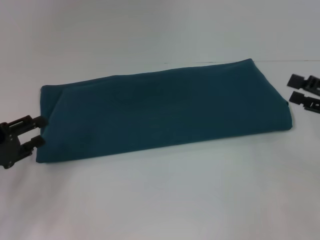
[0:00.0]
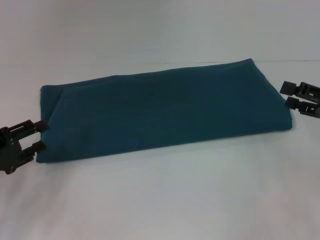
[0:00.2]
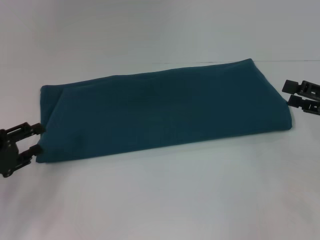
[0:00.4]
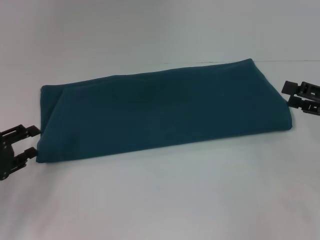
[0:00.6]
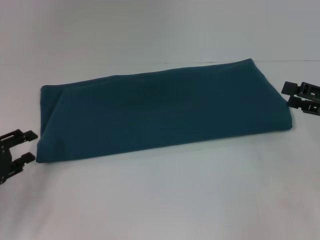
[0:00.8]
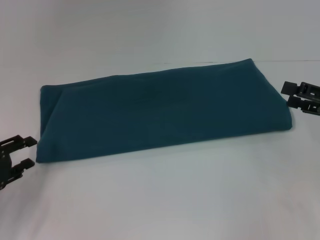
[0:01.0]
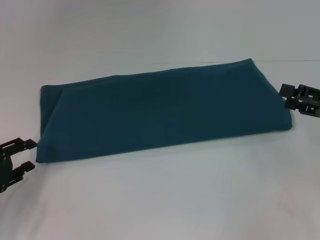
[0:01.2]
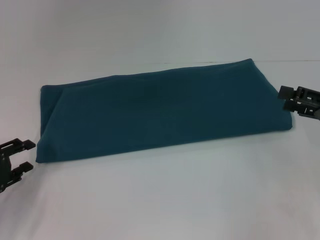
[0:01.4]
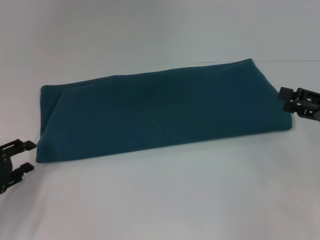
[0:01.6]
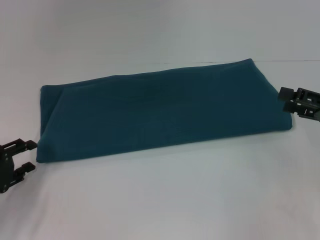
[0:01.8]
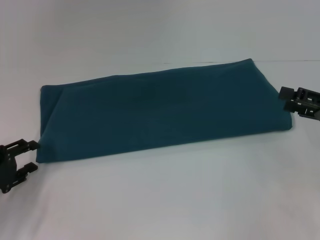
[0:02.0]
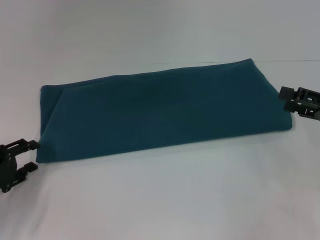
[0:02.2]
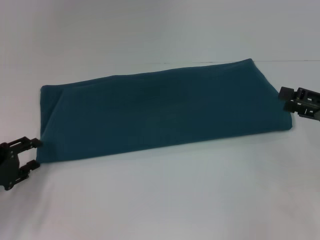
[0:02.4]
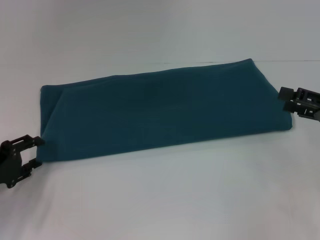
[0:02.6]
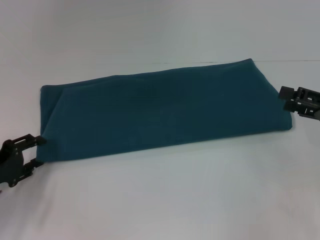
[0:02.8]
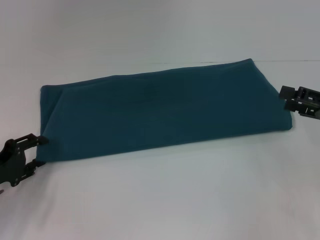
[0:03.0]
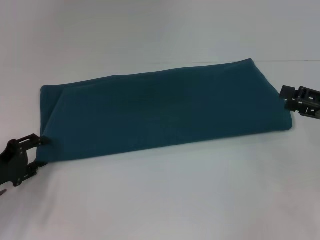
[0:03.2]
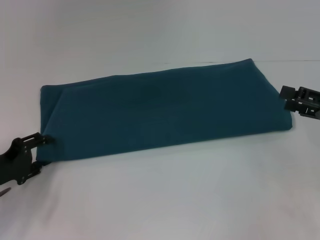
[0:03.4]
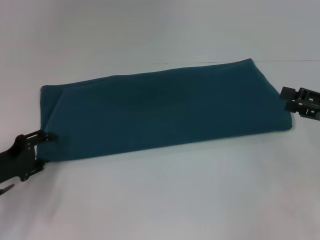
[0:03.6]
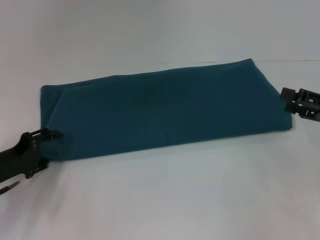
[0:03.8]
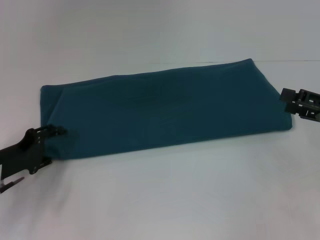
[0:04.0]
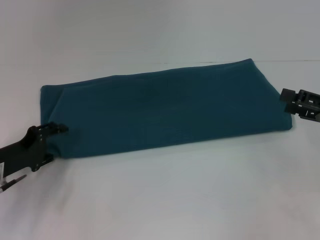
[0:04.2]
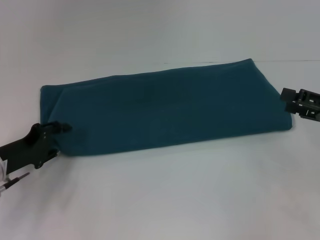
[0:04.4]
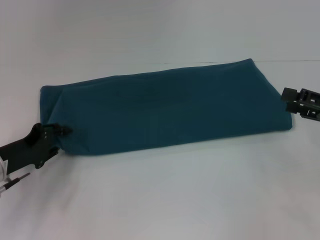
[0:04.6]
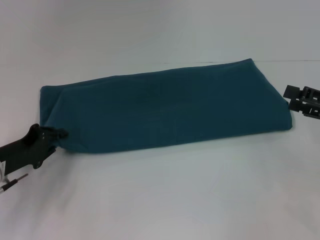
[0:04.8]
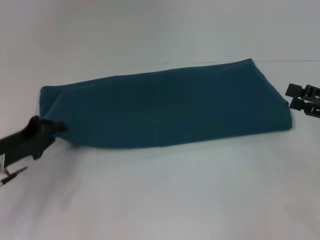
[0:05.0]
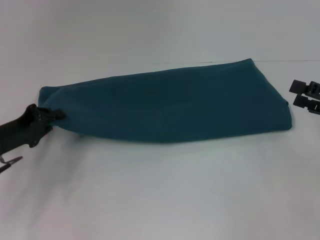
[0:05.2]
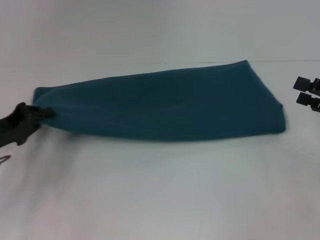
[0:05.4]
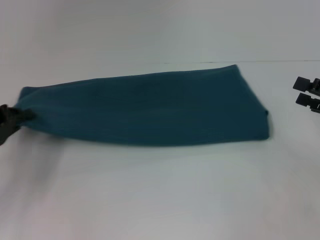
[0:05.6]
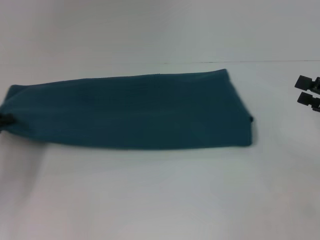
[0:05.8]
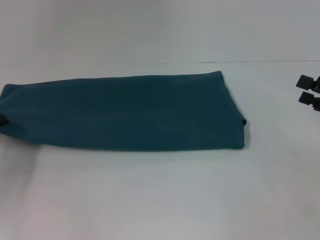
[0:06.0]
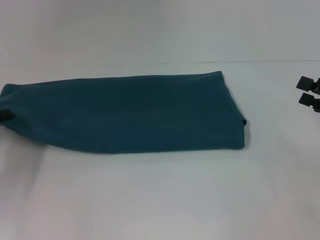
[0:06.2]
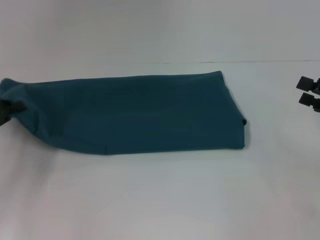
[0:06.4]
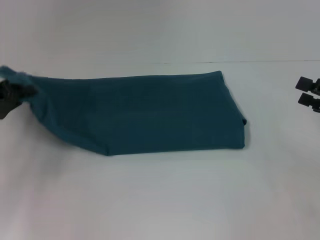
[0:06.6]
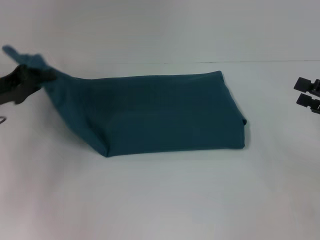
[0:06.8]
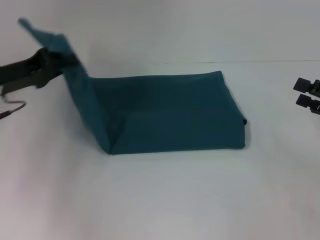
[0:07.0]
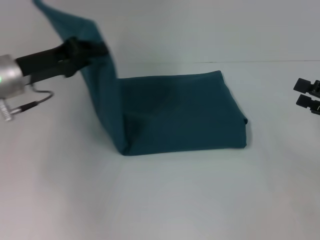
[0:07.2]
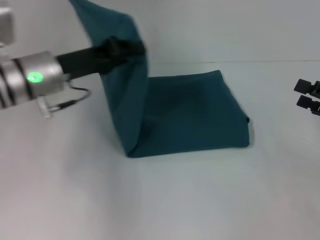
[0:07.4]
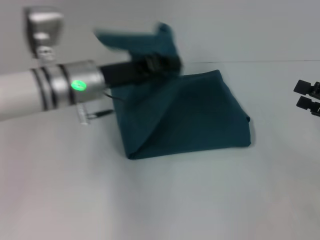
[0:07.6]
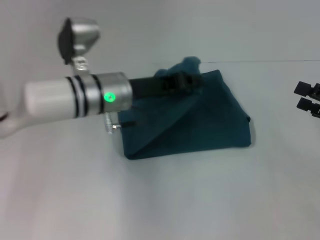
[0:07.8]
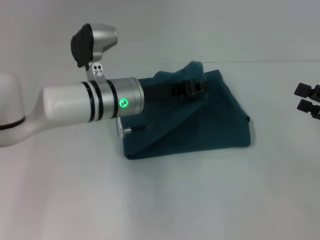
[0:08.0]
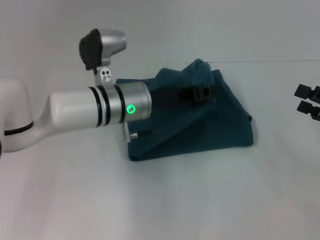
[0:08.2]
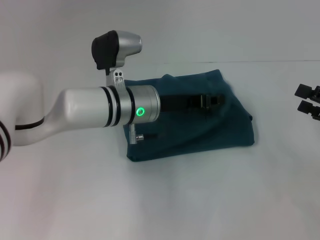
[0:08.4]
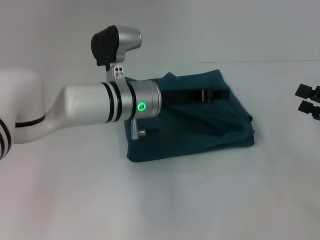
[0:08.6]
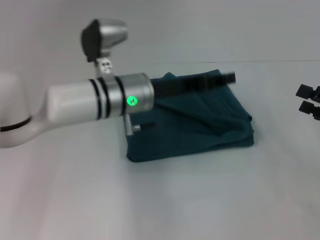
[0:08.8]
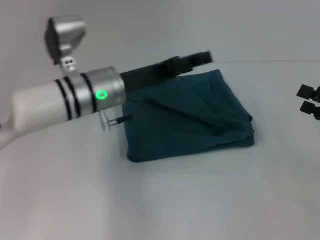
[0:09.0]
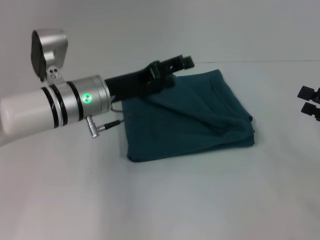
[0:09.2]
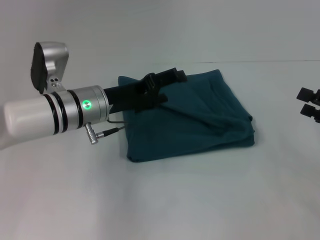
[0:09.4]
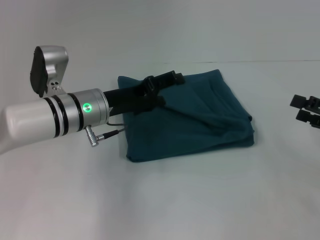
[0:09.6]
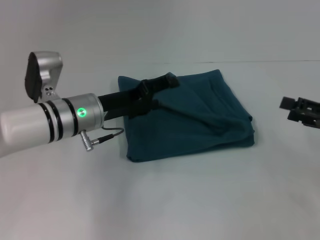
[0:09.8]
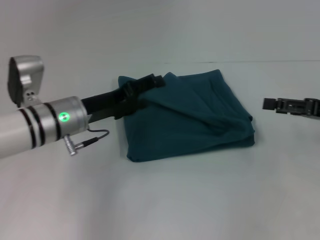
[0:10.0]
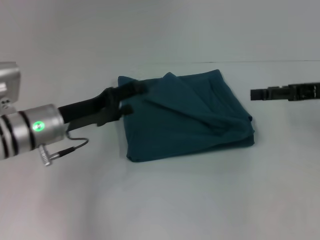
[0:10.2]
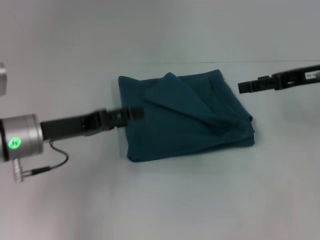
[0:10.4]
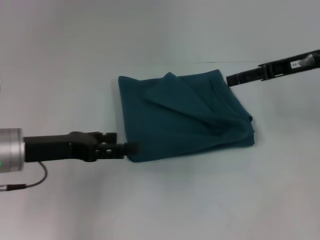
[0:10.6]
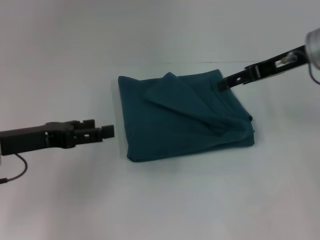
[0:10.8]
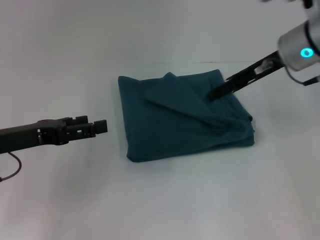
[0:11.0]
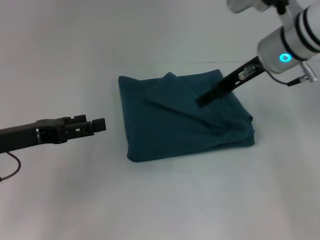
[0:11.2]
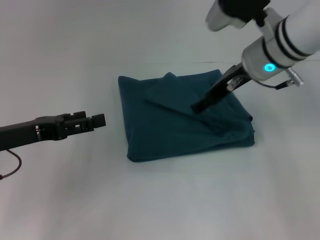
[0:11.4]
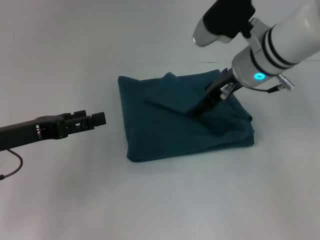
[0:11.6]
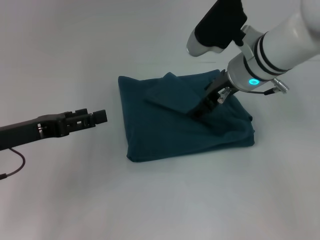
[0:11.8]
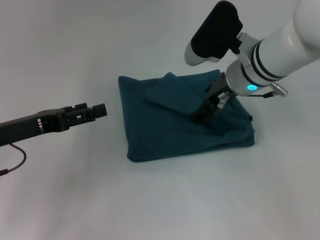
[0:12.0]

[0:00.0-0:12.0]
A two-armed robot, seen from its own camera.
Step, 0:00.0 to 0:09.0: Fold the clothes to the left.
0:00.0 to 0:03.0: There are only small adjustments of the grippers.
0:03.0 to 0:04.4: The grippers stay close to where they were, moving slightly.
0:04.4 to 0:06.0: The left gripper travels to the left by some 10 cm, and closes up.
0:06.0 to 0:07.6: The left gripper goes approximately 25 cm to the right.
0:07.6 to 0:09.0: The left gripper goes to the right and returns, some 10 cm each way, and opens up.
0:09.0 to 0:10.4: The right gripper heads forward, upward and to the left, covering roughly 15 cm; the left gripper travels to the left and backward by approximately 10 cm.
0:10.4 to 0:12.0: The right gripper is displaced to the left by some 15 cm. The left gripper changes place by roughly 5 cm.

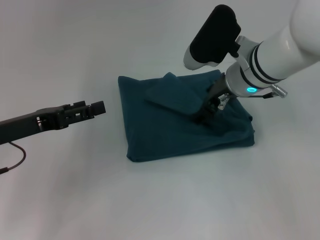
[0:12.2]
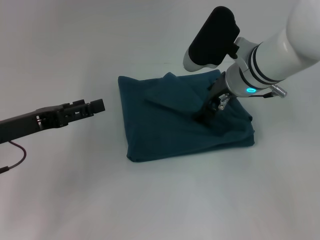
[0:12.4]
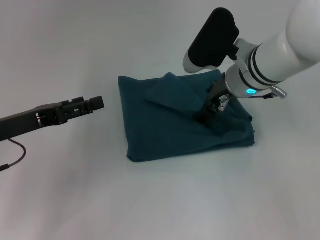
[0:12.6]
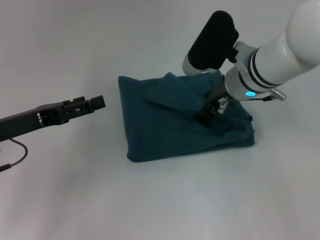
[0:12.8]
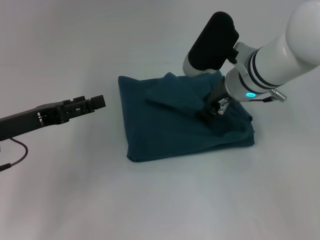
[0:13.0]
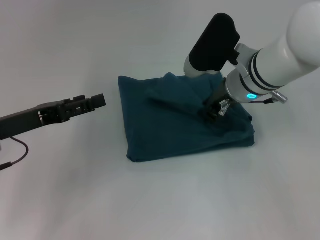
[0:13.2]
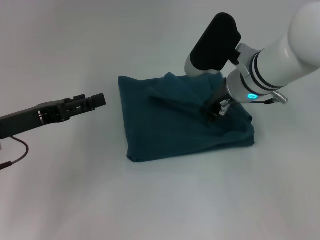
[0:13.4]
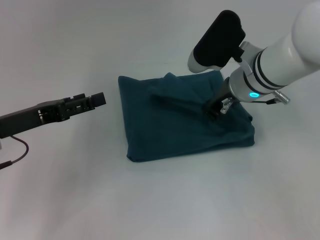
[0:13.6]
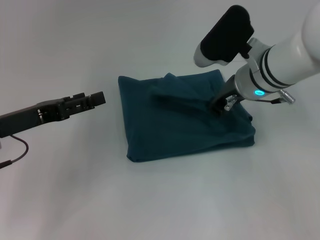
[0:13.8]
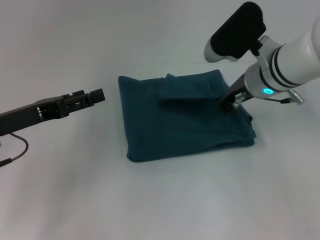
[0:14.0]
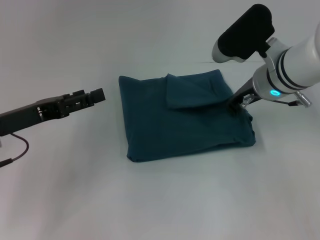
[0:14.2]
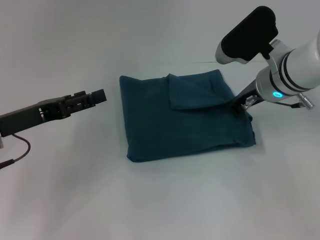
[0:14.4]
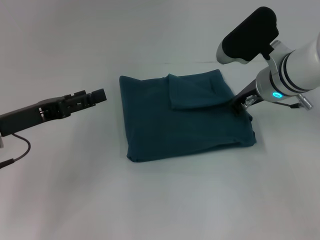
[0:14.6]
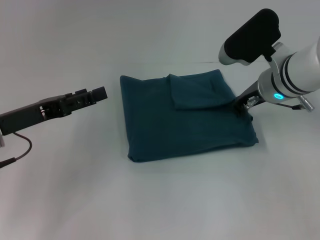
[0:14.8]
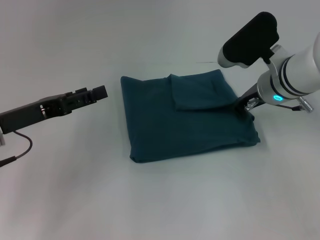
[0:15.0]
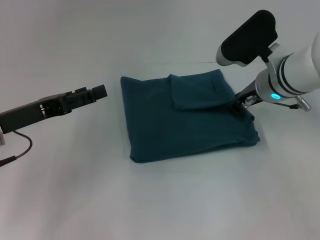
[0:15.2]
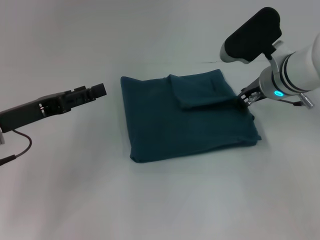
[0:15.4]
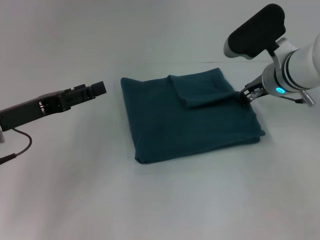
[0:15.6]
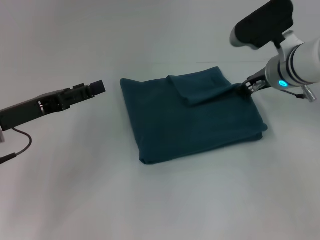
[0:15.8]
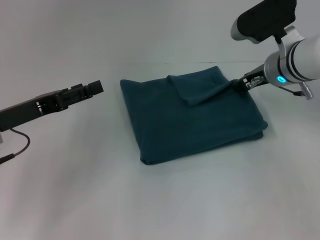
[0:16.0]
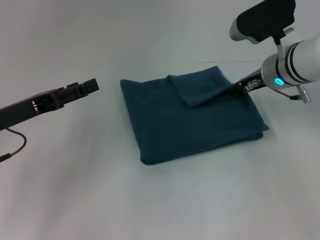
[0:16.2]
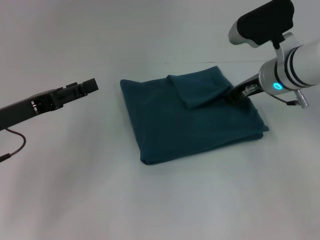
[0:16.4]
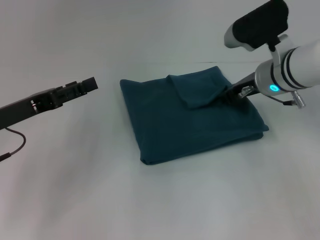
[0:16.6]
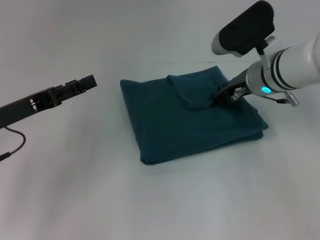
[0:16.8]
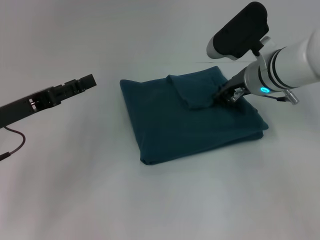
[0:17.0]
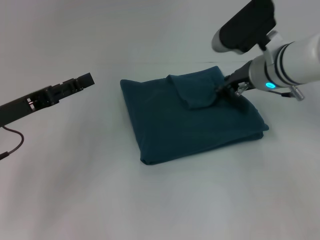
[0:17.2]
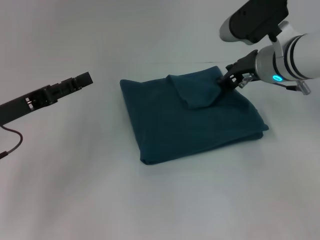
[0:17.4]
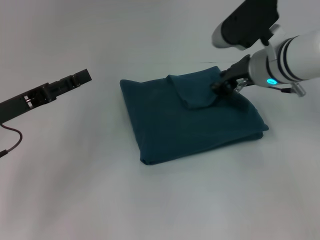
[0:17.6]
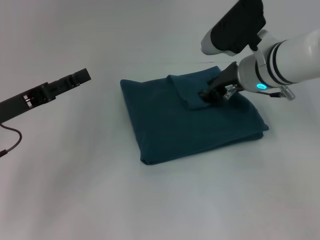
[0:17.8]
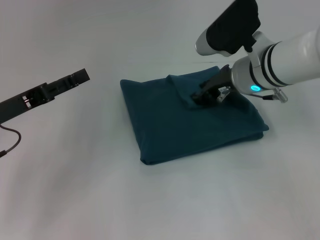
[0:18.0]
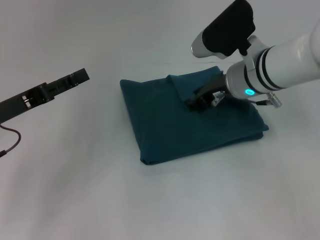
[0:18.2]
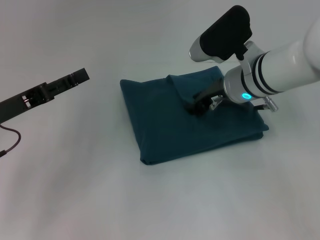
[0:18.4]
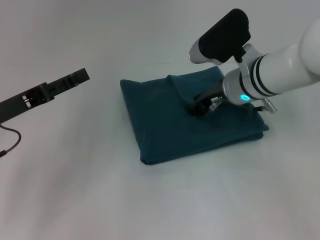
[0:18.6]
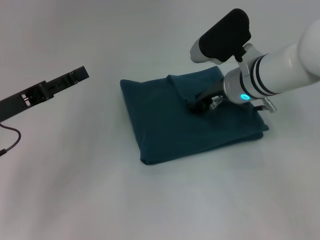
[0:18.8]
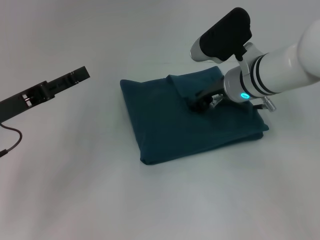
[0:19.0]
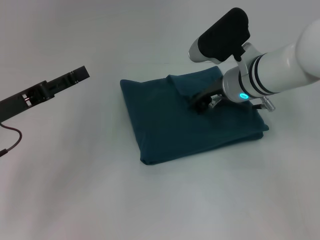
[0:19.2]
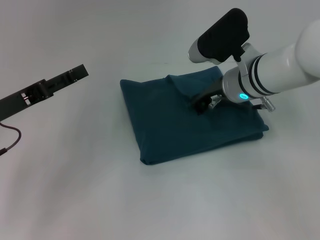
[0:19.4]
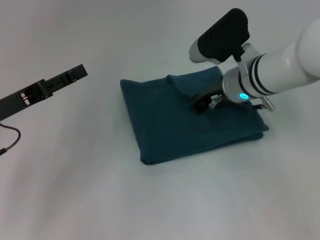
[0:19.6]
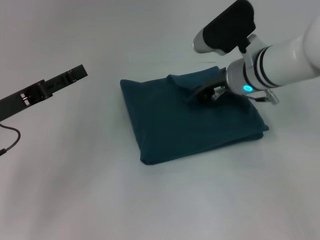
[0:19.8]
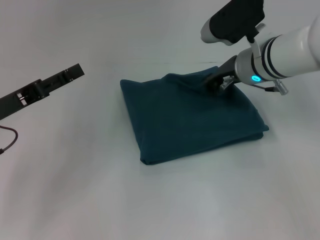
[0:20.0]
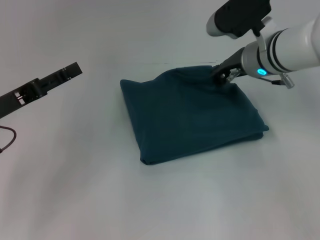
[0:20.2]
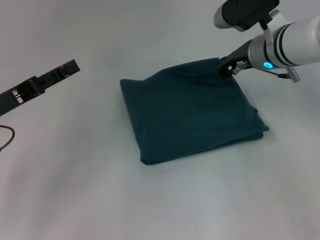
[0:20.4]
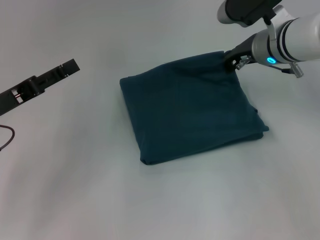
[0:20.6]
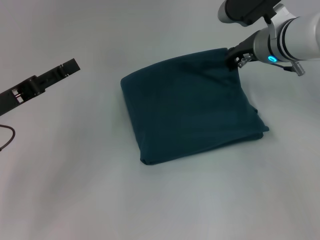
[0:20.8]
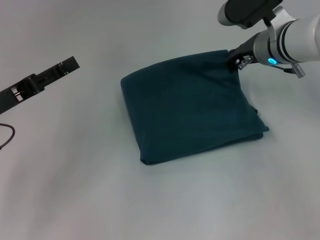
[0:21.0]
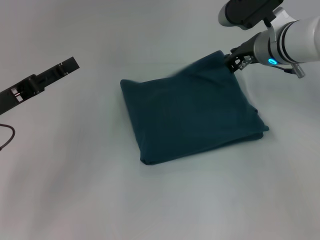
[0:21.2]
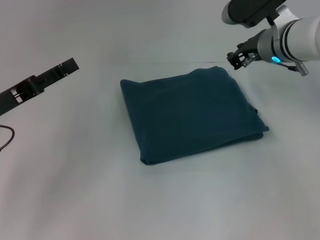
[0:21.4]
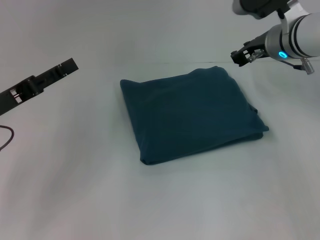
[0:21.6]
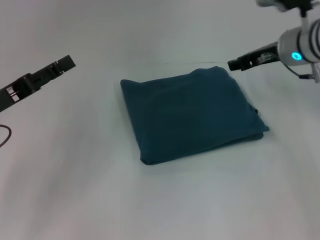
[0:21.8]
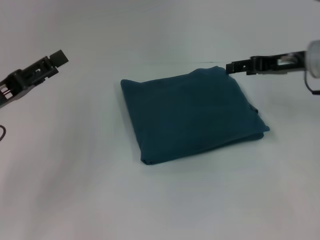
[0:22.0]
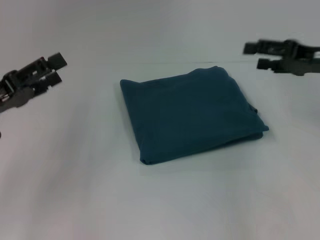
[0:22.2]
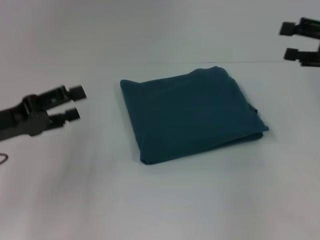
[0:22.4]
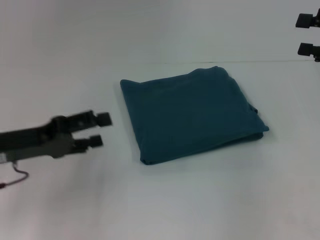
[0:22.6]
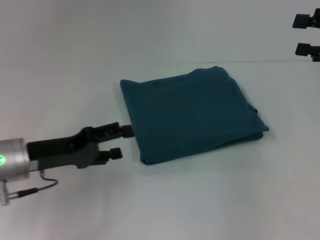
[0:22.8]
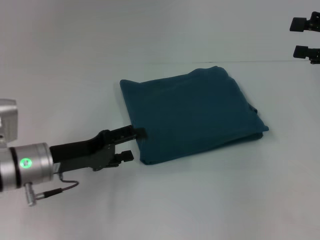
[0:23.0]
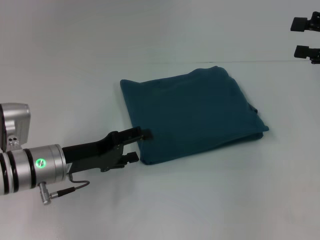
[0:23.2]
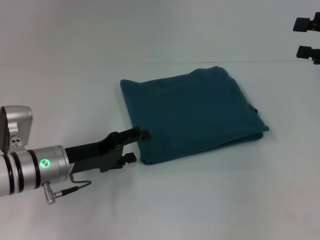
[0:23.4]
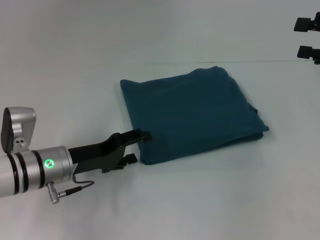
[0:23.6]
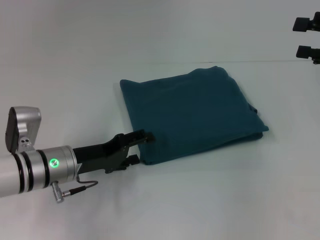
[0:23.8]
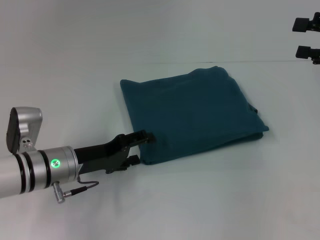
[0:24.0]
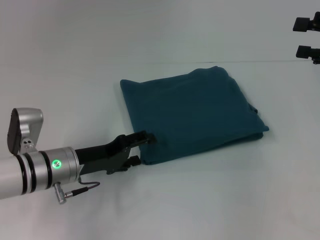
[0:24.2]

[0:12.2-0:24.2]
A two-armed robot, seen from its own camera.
0:12.2 to 0:13.8: The right gripper closes up.
0:13.8 to 0:15.2: The grippers make only small movements.
0:15.2 to 0:21.2: The grippers move only a little.
0:21.2 to 0:22.6: The right gripper heads to the right and backward, covering some 20 cm, and opens up.
0:22.6 to 0:24.2: The left gripper travels to the right and downward by approximately 10 cm.
